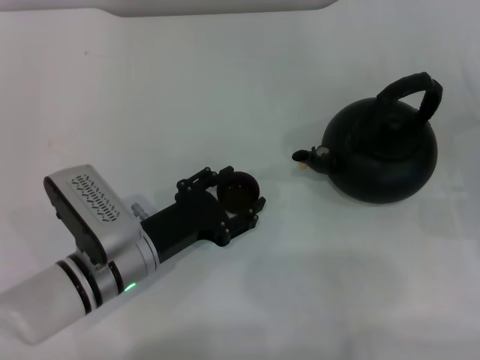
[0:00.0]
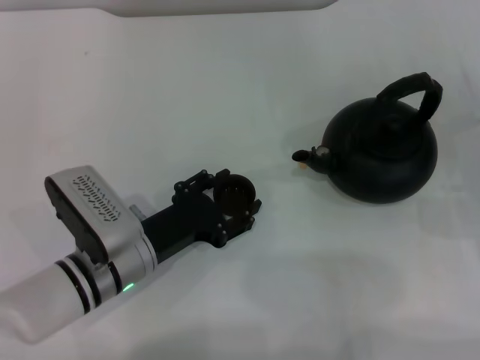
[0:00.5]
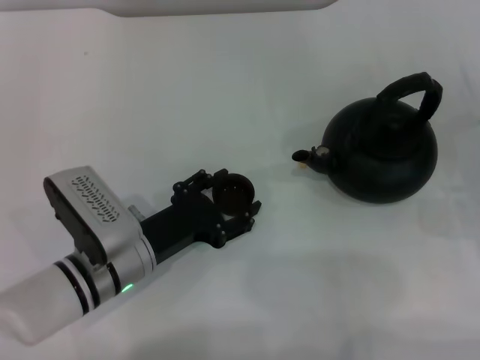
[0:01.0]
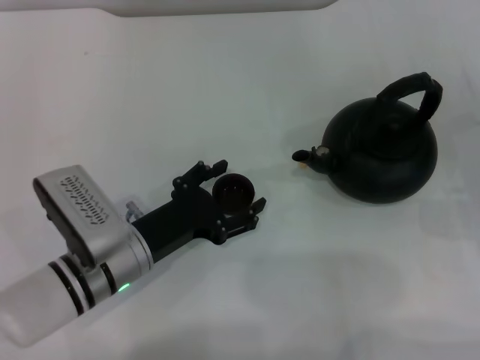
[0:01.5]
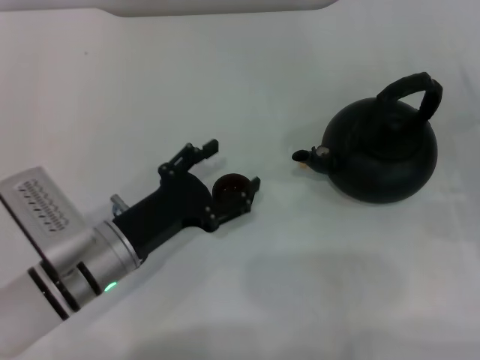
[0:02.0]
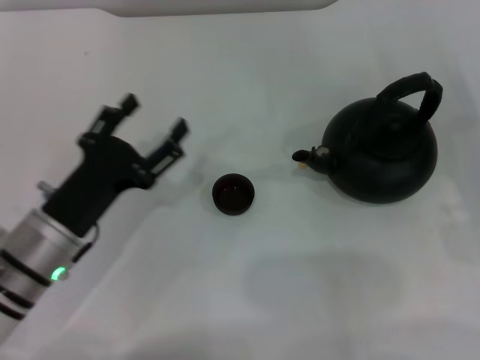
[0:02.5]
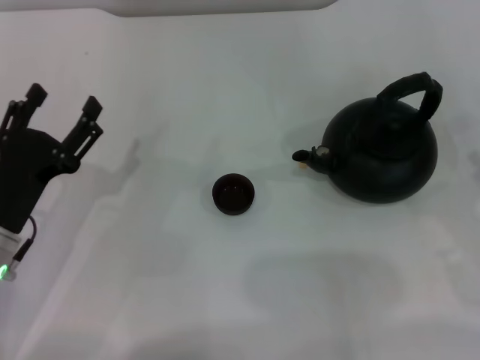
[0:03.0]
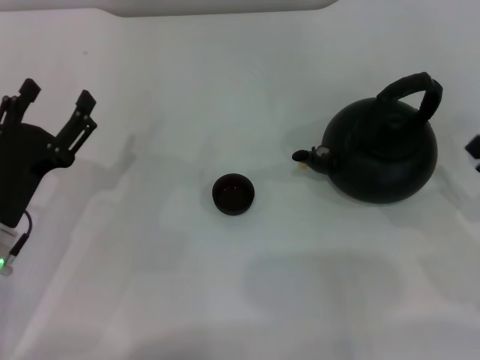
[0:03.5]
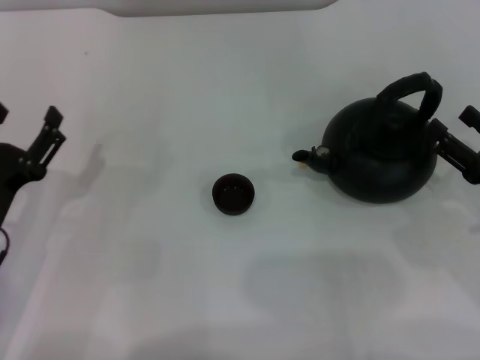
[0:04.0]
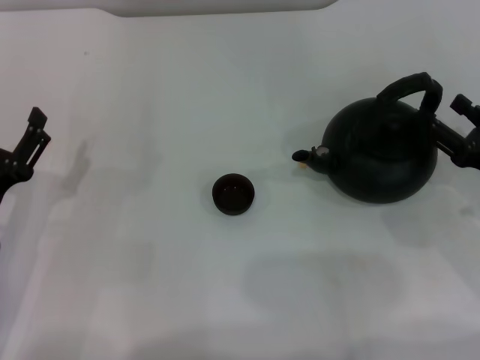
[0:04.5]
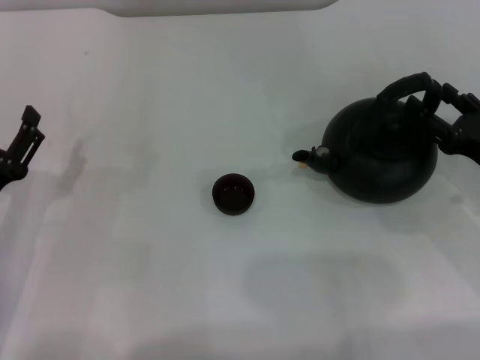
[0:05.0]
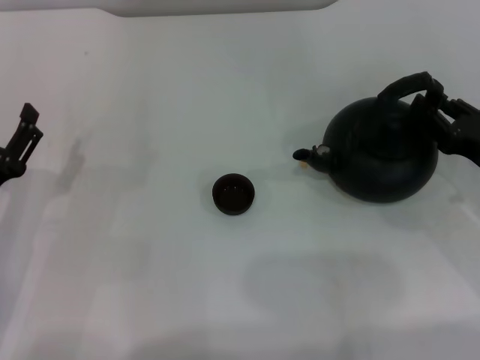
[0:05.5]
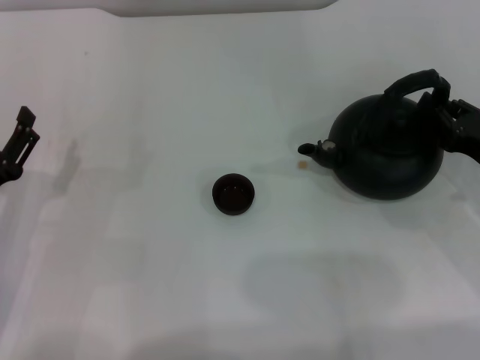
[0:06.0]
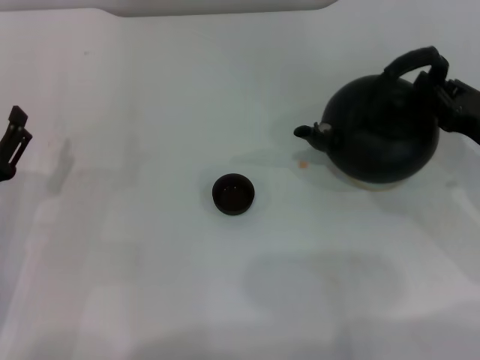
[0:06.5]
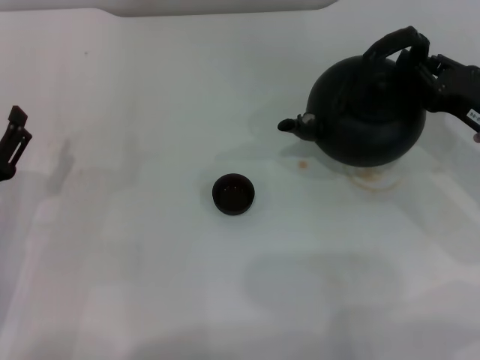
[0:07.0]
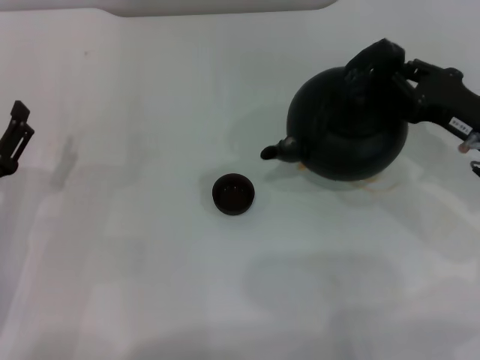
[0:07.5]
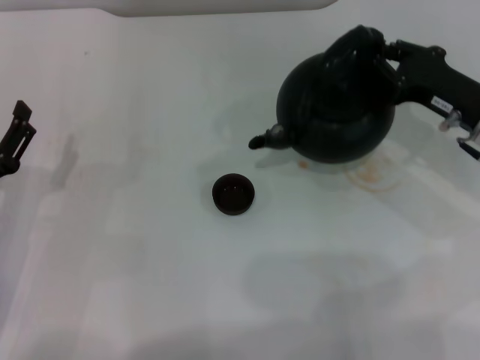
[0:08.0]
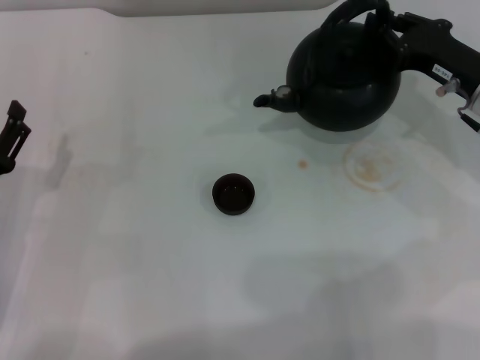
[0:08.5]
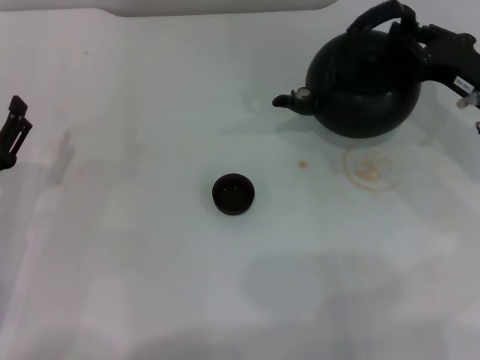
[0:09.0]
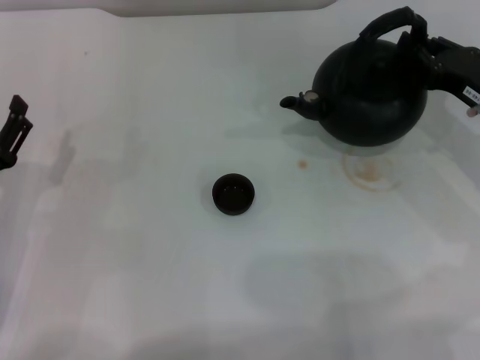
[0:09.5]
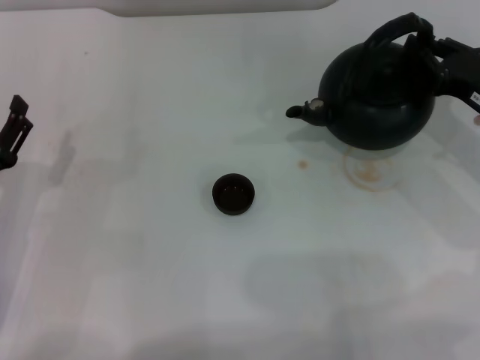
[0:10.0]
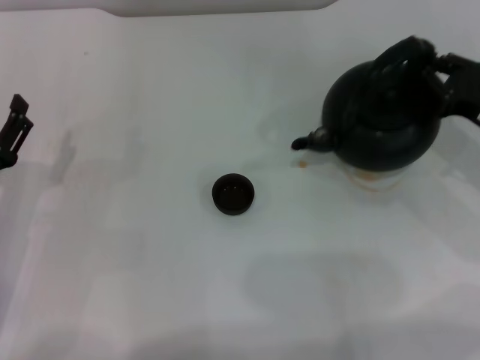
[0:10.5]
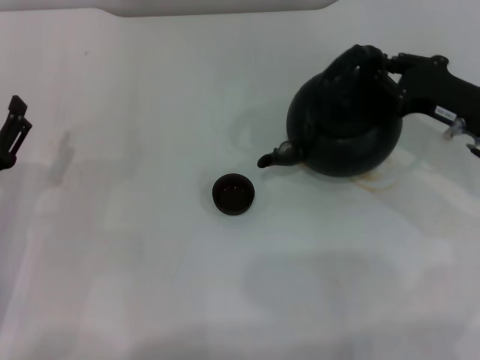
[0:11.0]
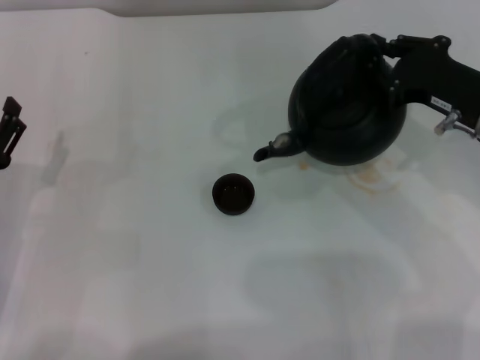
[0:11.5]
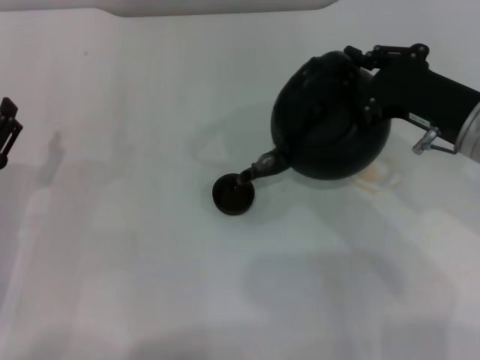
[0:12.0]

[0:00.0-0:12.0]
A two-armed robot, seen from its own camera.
Task of the whole recording: Grasp the handle of the teapot with one hand and pour tea into the teacup.
Step, 0:00.0 to 0:02.0: Place the teacup in the center of view with the left gripper.
Step, 0:02.5 to 0:07.5: Pick up the teapot with the right gripper.
0:00.0 to 0:02.0: The left gripper opens its fingers.
0:02.0 to 0:04.0: The left gripper moves to the left, approximately 10 cm.
0:04.0 to 0:06.0: The right gripper closes up.
0:06.0 to 0:08.0: The right gripper travels forward by roughly 5 cm.
0:08.0 to 0:10.0: The grippers make only small movements.
0:10.0 to 0:12.0: The right gripper travels to the left and upward by approximately 10 cm.

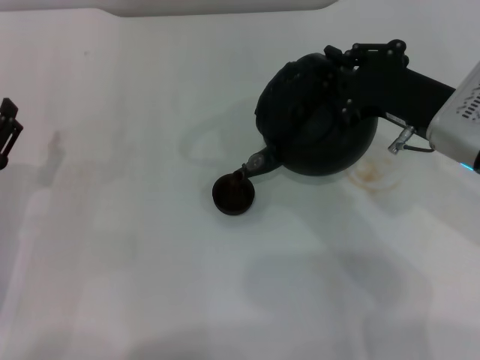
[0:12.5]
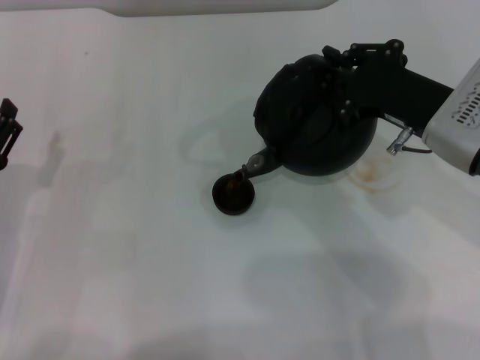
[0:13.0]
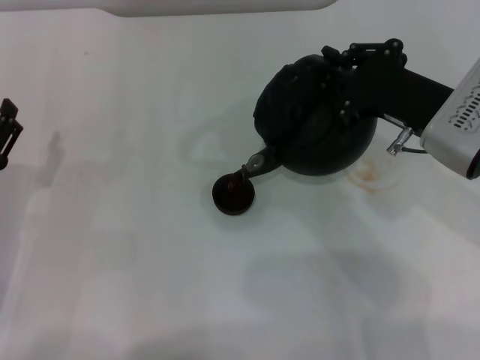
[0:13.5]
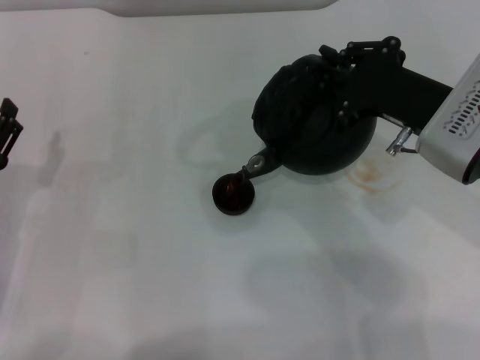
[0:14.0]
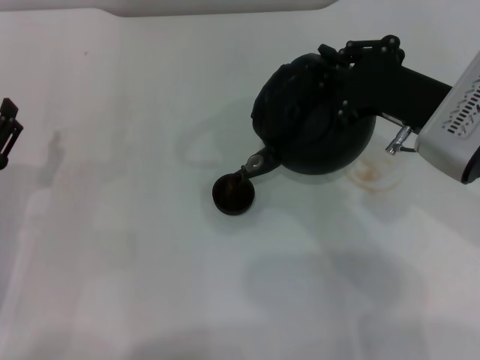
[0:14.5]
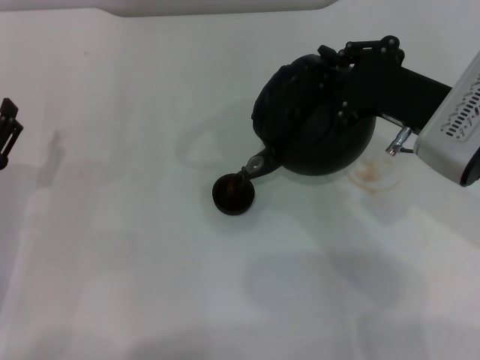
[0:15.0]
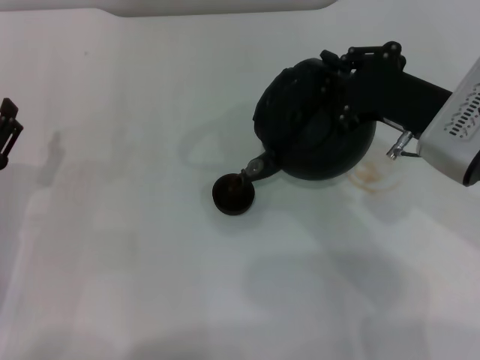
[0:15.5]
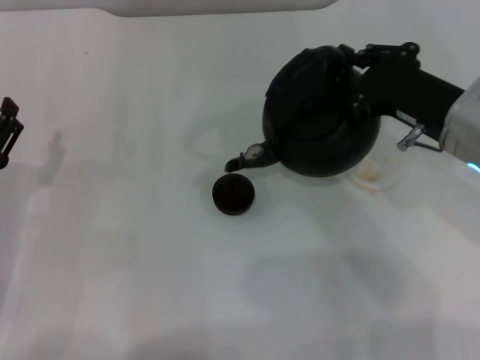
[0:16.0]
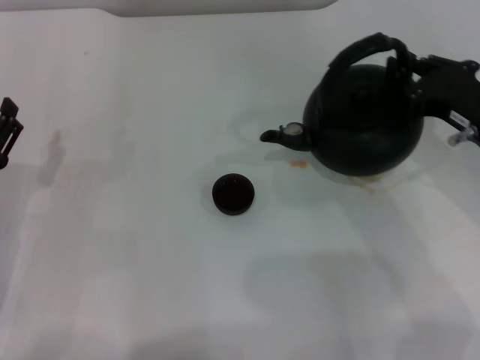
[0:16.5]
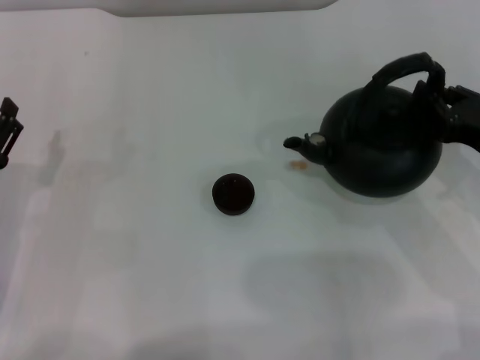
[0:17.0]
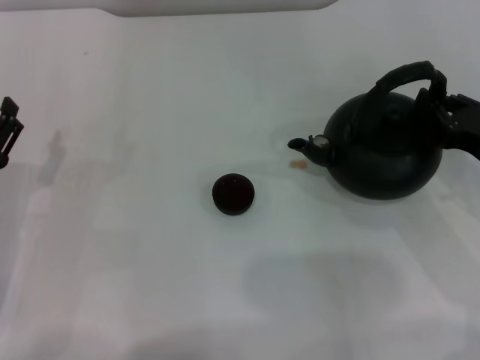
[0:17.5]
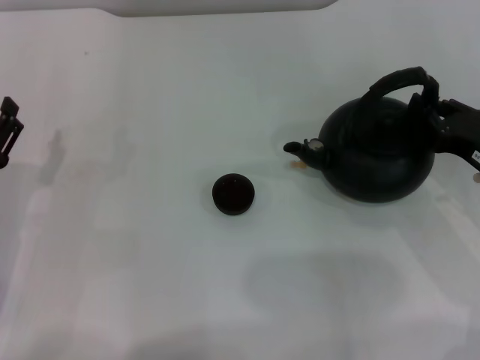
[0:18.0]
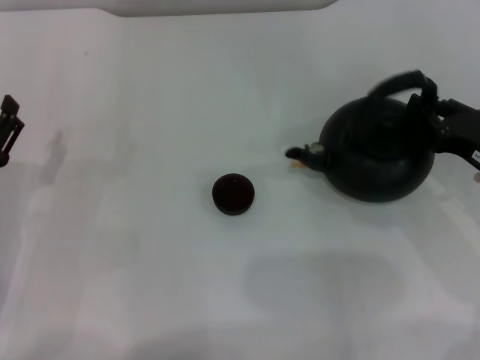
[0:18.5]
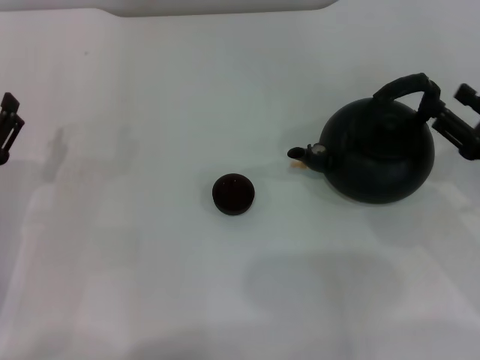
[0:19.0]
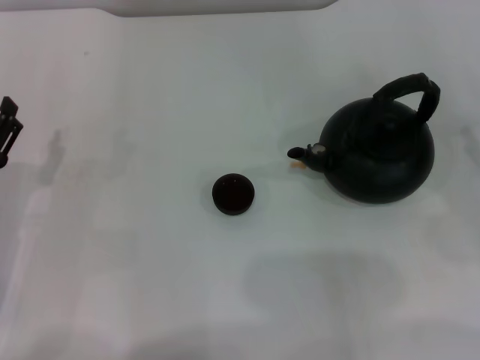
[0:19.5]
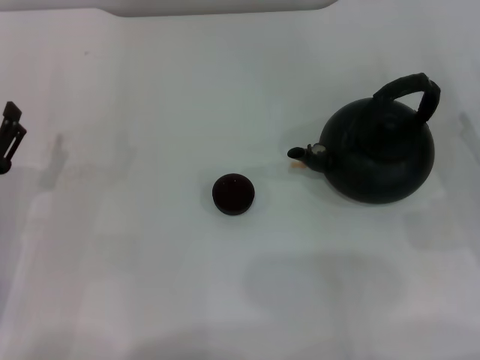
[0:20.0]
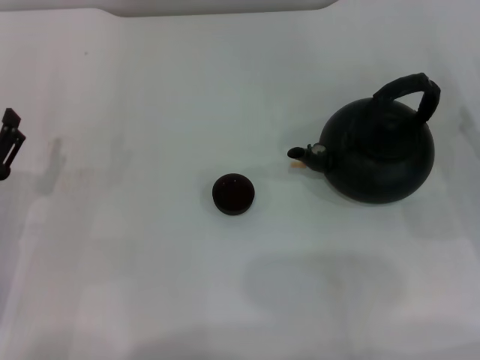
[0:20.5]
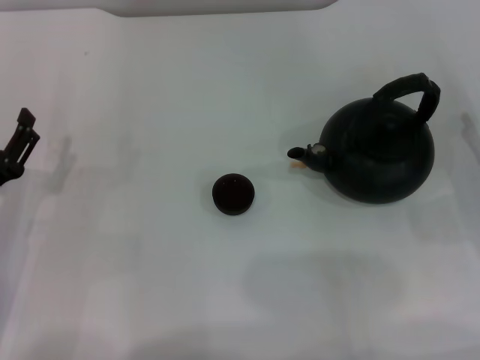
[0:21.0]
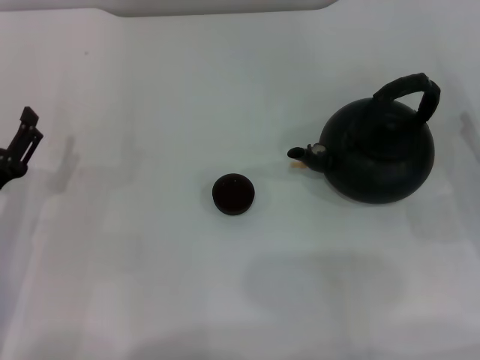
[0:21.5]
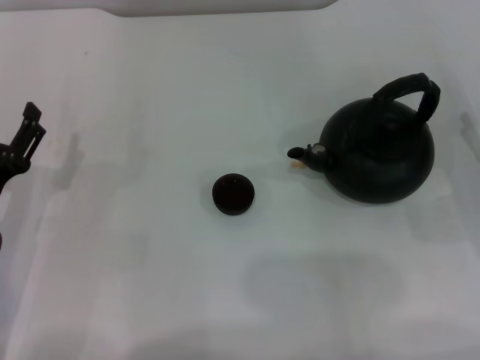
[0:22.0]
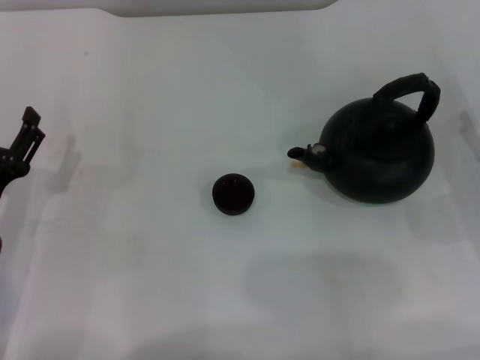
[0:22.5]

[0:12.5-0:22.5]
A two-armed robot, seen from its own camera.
Task of the whole recording: Grasp the handle of the teapot with one hand and pour tea into the teacup.
Step, 0:12.5 to 0:16.0: Pour tea into the teacup with the right gripper.
Step, 0:16.5 to 0:19.0: Put down the teapot with the right gripper.
0:12.5 to 0:14.5: The grippers move only a little.
0:14.5 to 0:16.5: The right gripper travels to the right by roughly 5 cm.
0:16.5 to 0:18.5: The right gripper travels downward by about 5 cm.
0:18.5 to 0:20.5: The right gripper goes approximately 5 cm to the right, and opens its fingers.
0:20.5 to 0:22.5: The grippers move only a little.

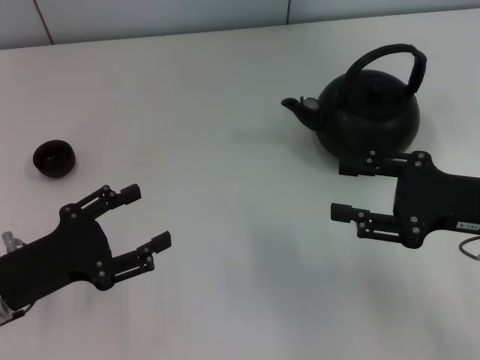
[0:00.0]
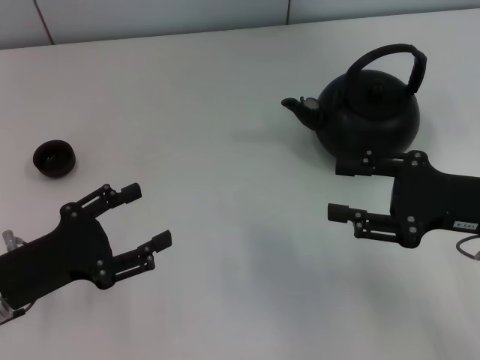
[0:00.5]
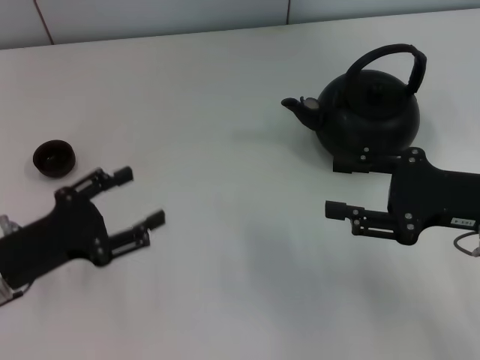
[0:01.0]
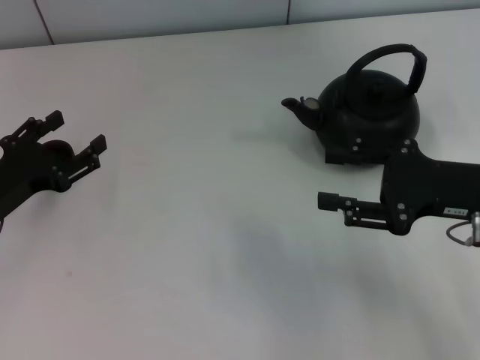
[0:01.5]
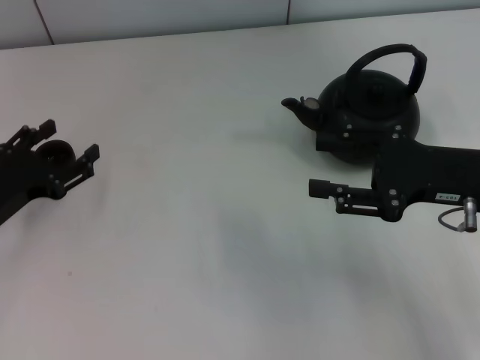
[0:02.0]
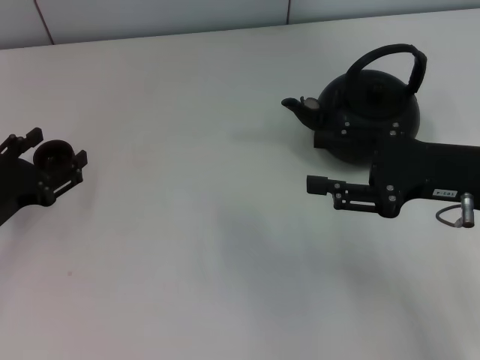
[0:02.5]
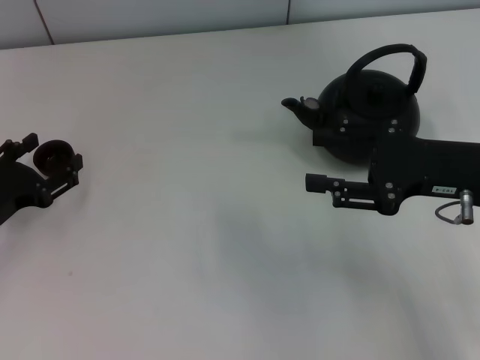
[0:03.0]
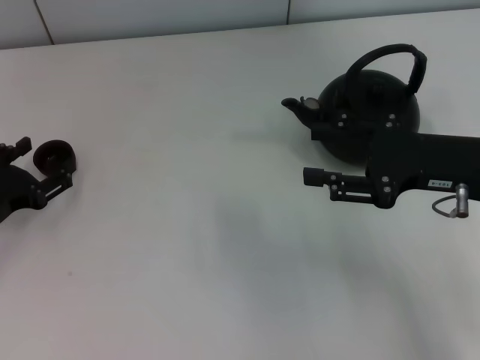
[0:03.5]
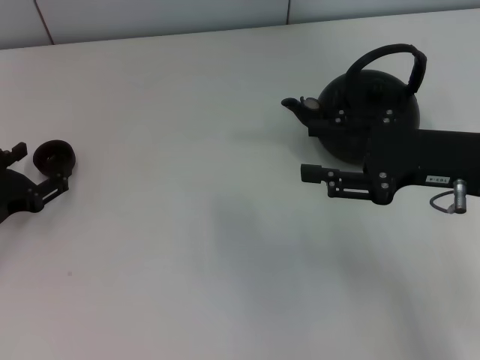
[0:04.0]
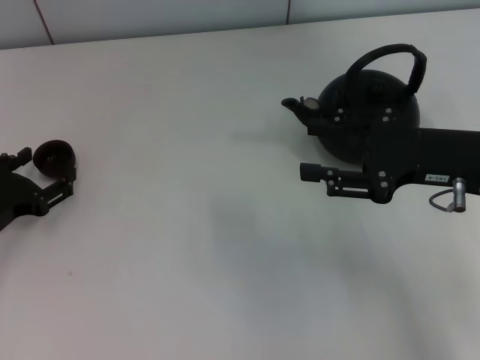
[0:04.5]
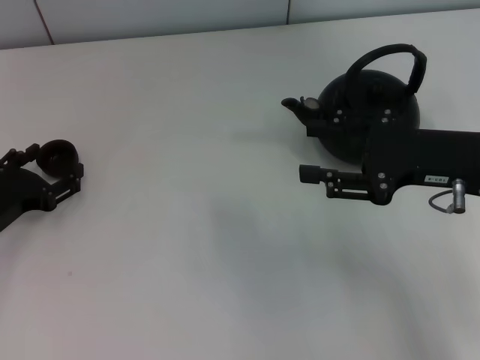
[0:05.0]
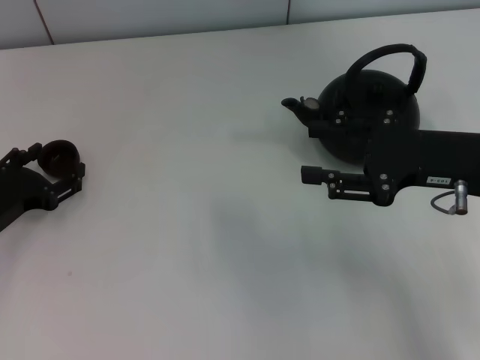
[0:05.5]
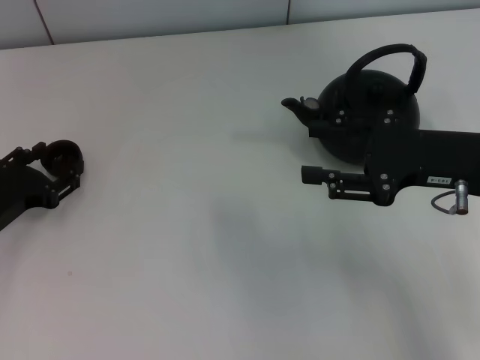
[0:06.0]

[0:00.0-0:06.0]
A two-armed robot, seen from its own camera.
Task of the whole recording: Grasp the handle of the teapot with one hand and pour tea into the teacup.
0:00.0 to 0:02.0: The left gripper moves forward, some 5 cm.
0:02.0 to 0:04.0: The grippers stay close to where they were, moving slightly.
0:04.0 to 0:06.0: The left gripper closes up.
